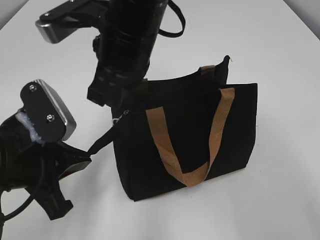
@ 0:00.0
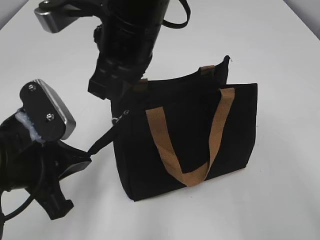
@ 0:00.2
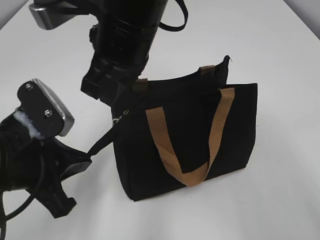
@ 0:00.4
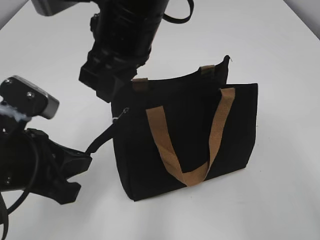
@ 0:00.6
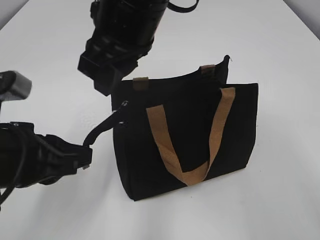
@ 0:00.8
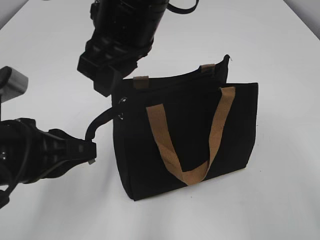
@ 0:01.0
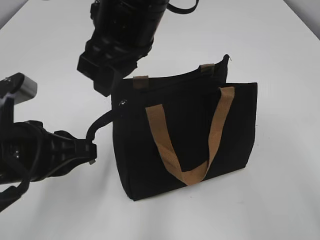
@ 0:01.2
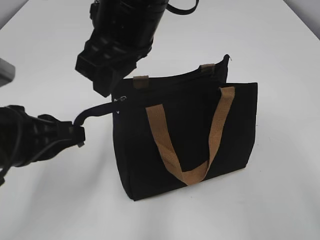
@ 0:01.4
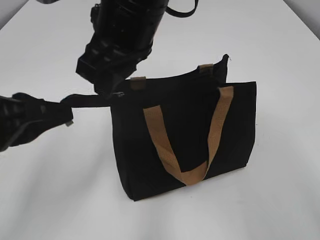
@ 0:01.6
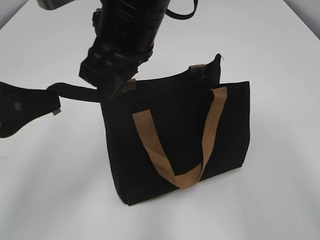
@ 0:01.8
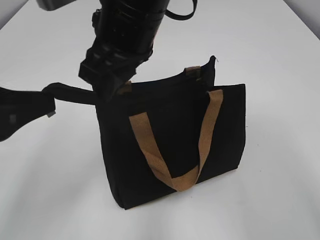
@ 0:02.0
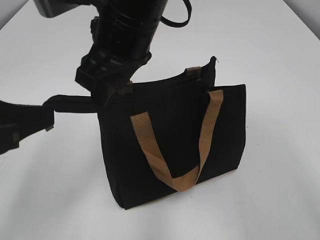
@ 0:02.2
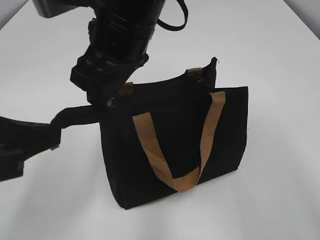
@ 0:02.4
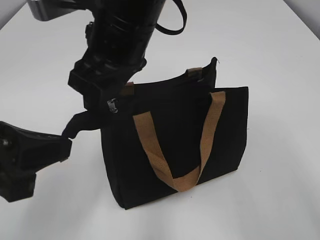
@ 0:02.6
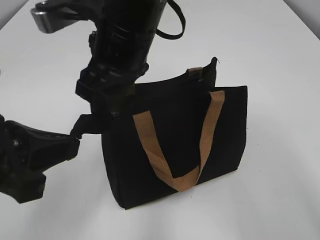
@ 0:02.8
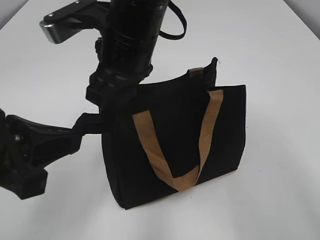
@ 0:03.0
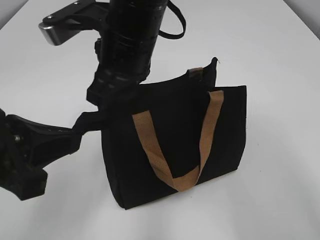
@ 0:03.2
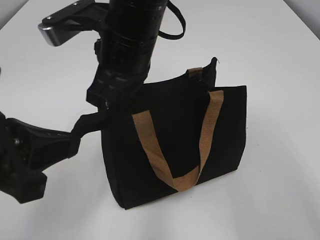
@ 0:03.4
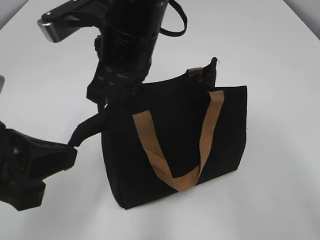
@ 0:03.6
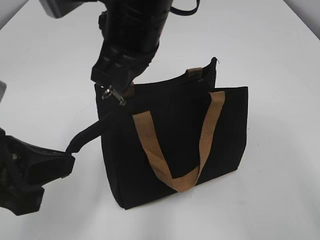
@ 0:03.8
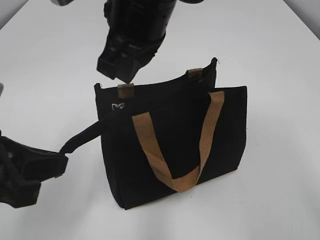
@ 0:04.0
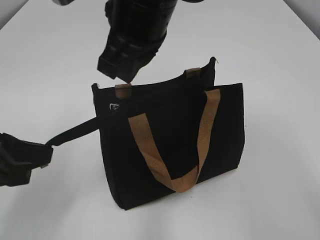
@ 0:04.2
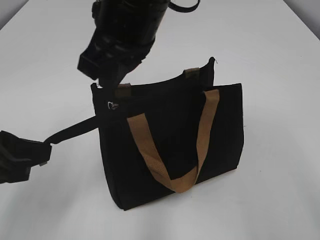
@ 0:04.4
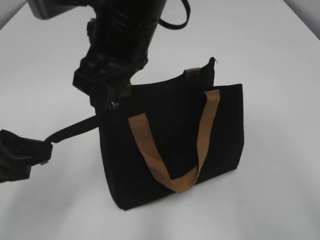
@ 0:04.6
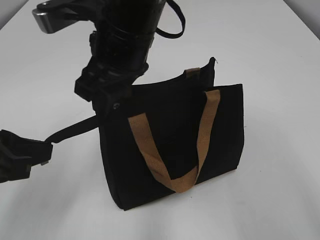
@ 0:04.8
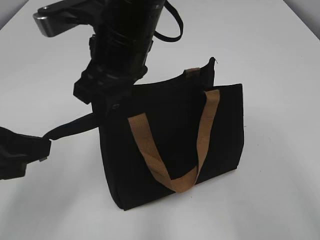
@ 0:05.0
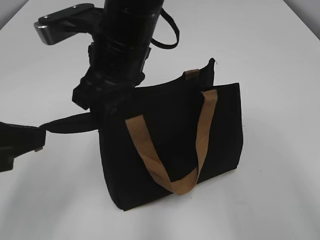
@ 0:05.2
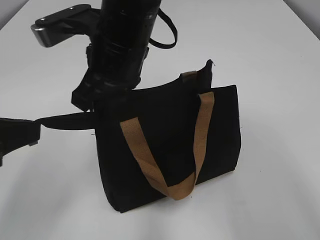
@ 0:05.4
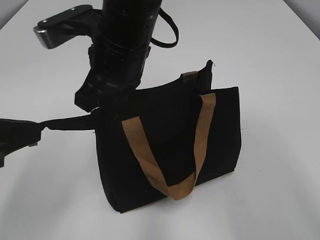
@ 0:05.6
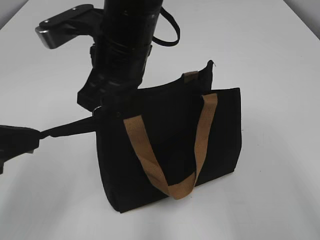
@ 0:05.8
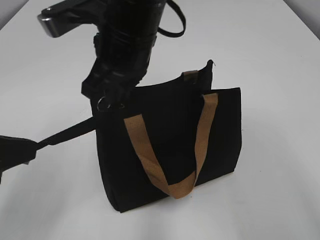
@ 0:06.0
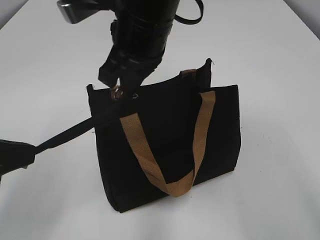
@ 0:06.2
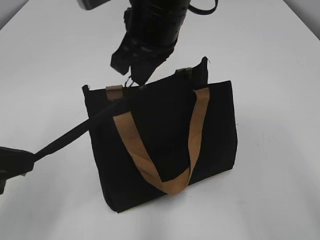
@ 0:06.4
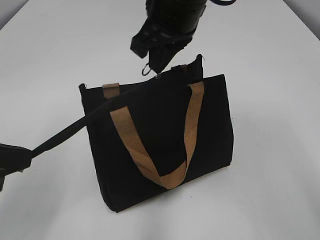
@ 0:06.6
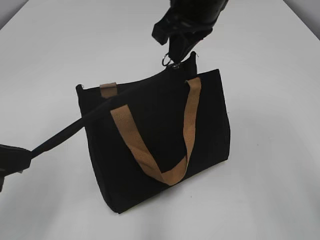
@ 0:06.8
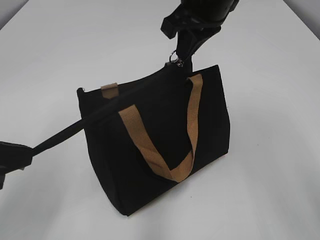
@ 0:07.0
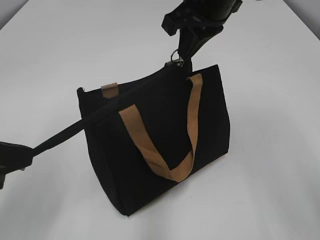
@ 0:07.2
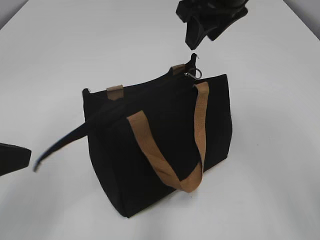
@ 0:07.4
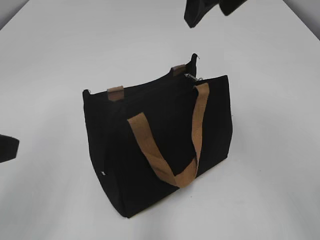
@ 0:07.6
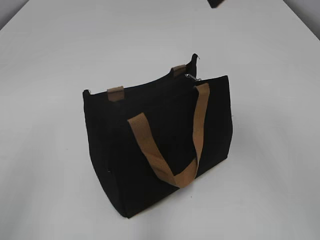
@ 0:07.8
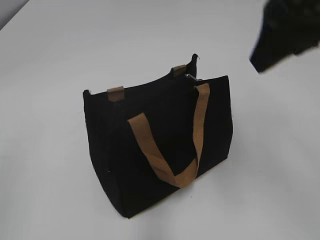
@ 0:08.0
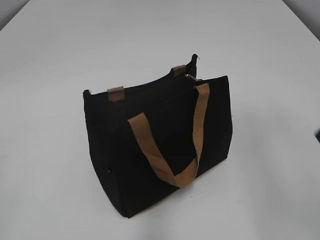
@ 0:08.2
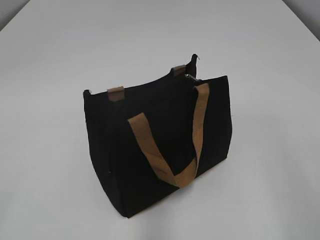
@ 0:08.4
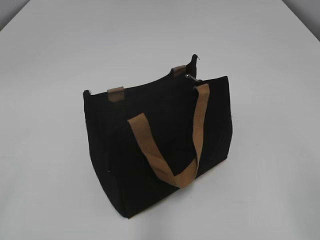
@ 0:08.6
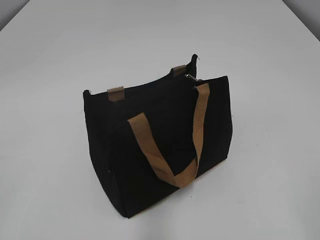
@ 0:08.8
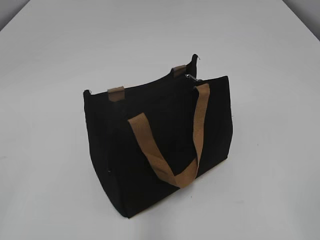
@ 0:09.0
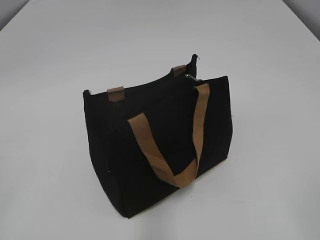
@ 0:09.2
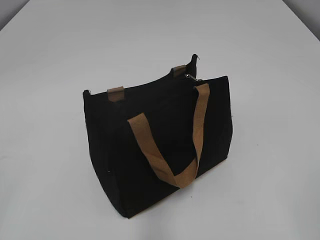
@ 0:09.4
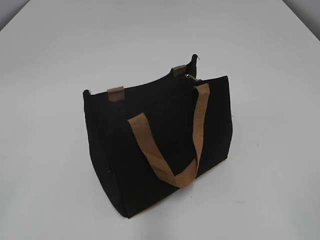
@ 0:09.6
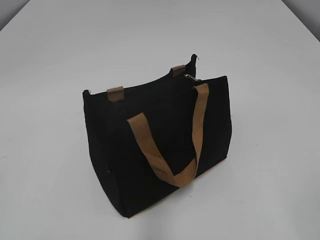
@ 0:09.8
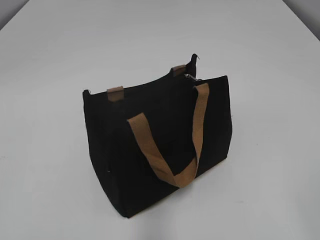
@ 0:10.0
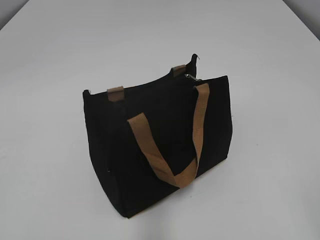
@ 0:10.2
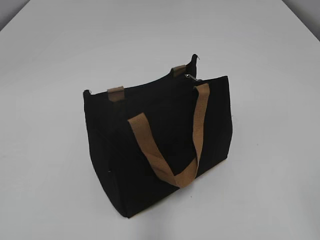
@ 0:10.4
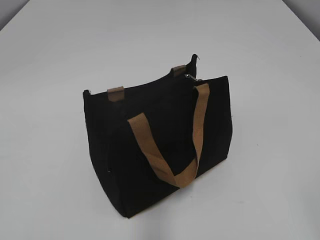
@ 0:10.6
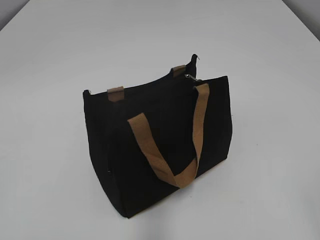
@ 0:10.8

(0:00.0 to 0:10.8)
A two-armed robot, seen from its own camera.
Step, 0:00.0 - 0:07.2: Zip up the bag with your right hand.
0:00.0 - 0:01.6: The right gripper opens its fingers. The left gripper moves upward, approximately 5 cm.
0:03.0 - 0:04.6: The right gripper closes, then reopens.
0:04.6 - 0:06.2: The right gripper closes up.
0:06.2 - 0:07.8: The left gripper ends up roughly 5 cm from where it was, and opens up. Meanwhile the right gripper is displaced to the right and upward by roughly 20 cm, and opens its fingers.
0:07.8 - 0:09.2: The right gripper is displaced backward, to the right and downward by some 35 cm; the left gripper goes some 10 cm backward and to the left.

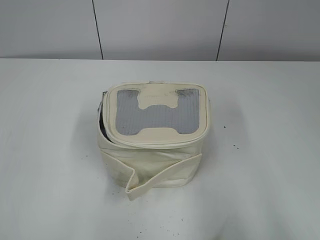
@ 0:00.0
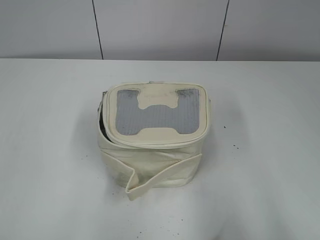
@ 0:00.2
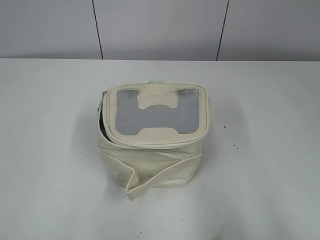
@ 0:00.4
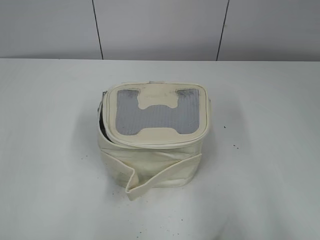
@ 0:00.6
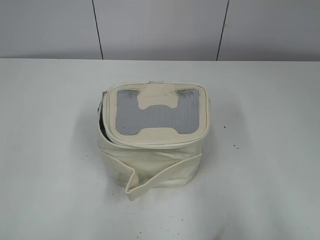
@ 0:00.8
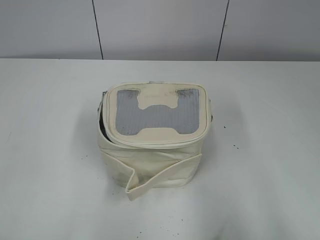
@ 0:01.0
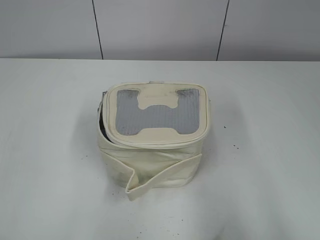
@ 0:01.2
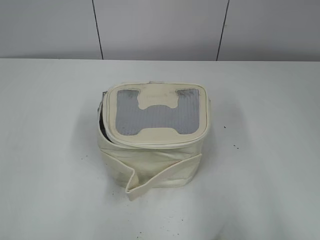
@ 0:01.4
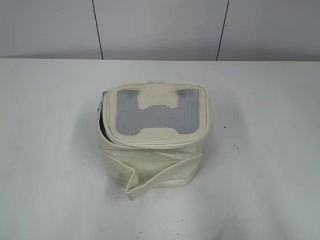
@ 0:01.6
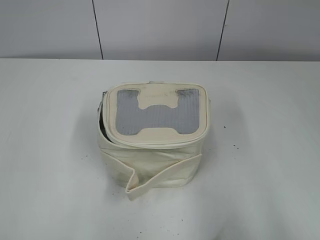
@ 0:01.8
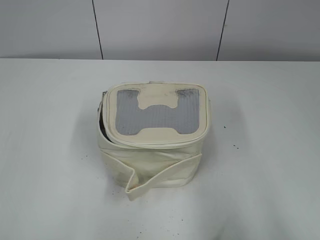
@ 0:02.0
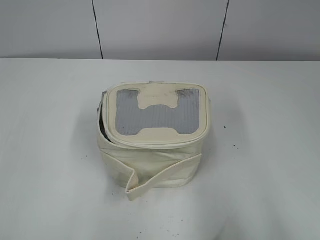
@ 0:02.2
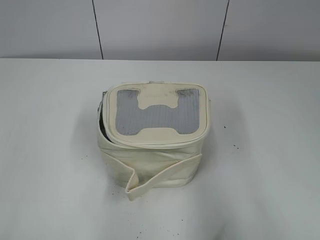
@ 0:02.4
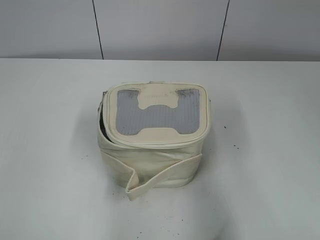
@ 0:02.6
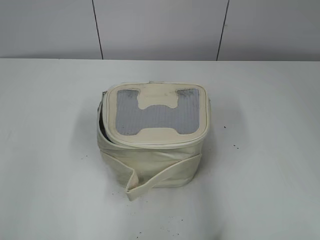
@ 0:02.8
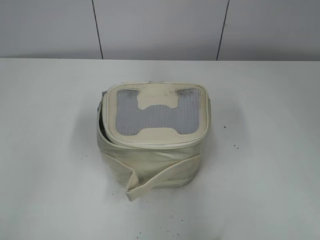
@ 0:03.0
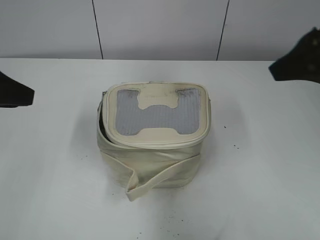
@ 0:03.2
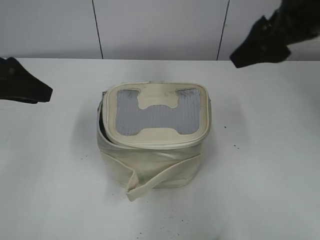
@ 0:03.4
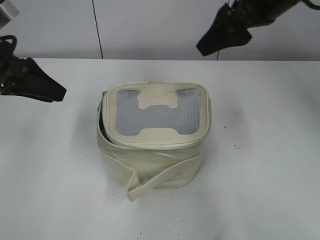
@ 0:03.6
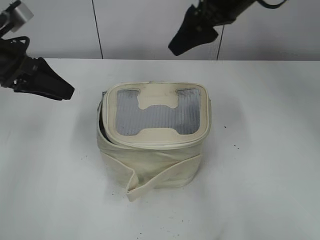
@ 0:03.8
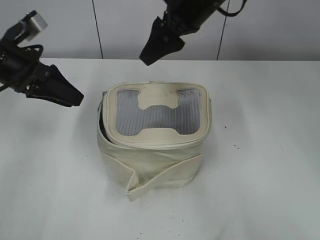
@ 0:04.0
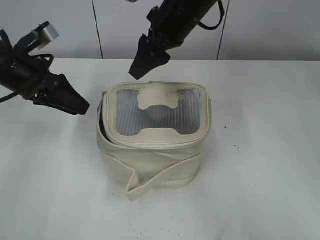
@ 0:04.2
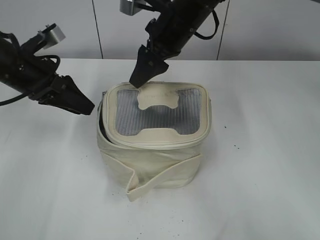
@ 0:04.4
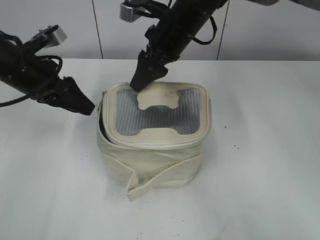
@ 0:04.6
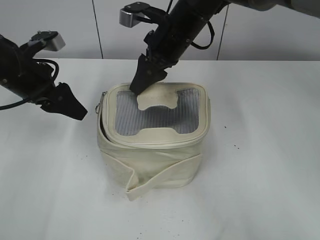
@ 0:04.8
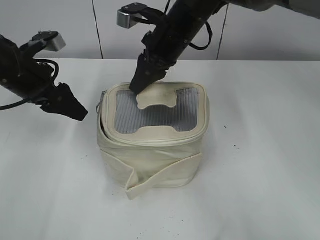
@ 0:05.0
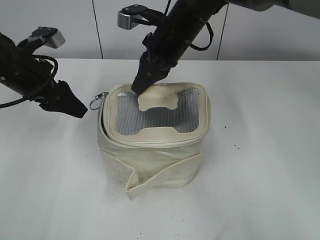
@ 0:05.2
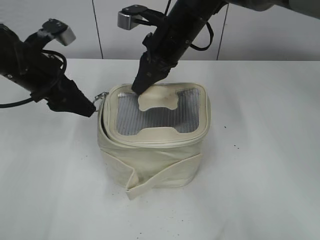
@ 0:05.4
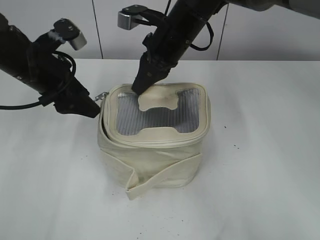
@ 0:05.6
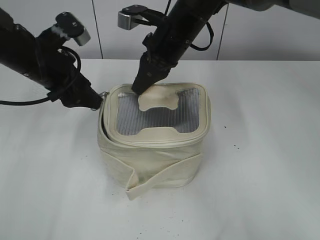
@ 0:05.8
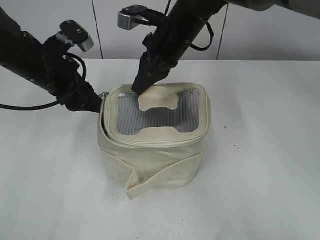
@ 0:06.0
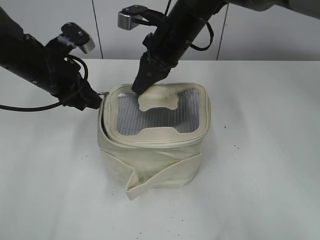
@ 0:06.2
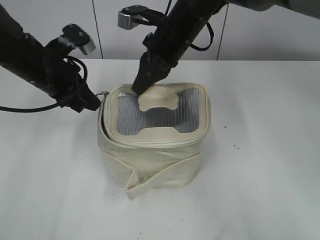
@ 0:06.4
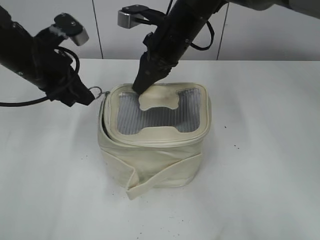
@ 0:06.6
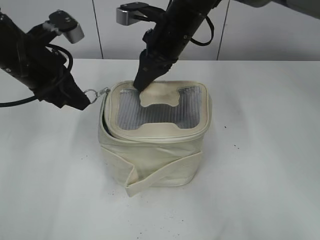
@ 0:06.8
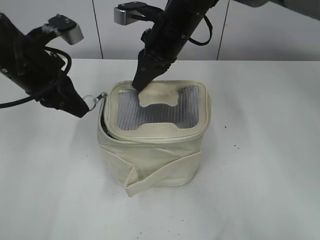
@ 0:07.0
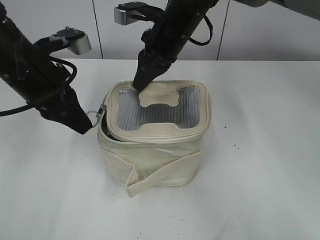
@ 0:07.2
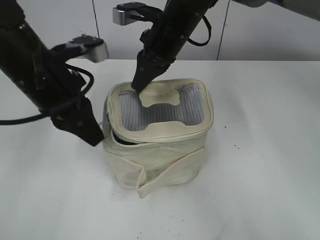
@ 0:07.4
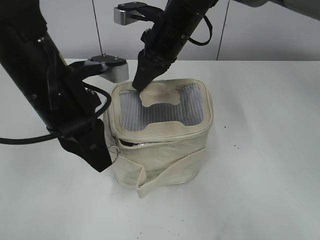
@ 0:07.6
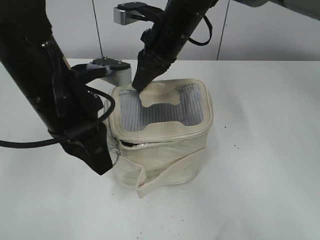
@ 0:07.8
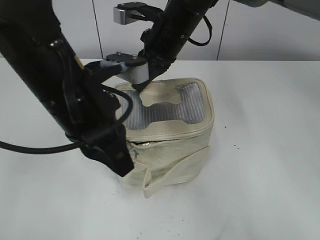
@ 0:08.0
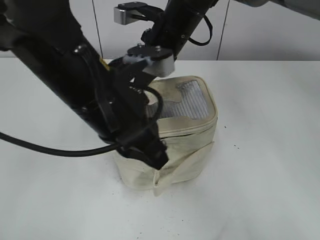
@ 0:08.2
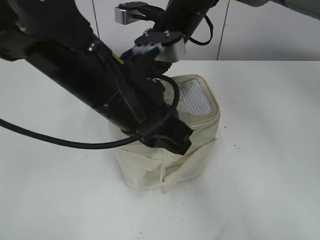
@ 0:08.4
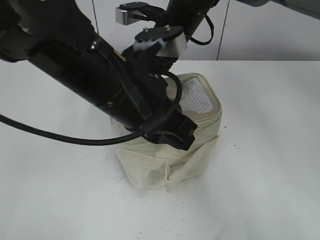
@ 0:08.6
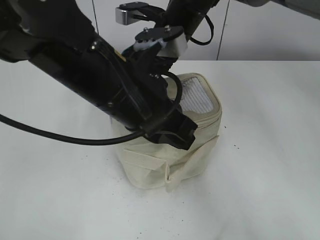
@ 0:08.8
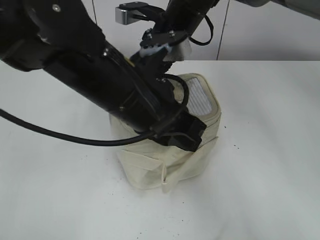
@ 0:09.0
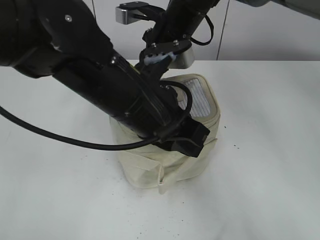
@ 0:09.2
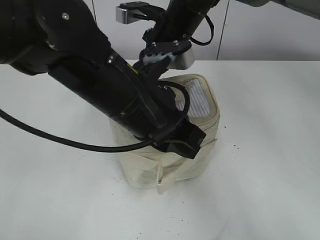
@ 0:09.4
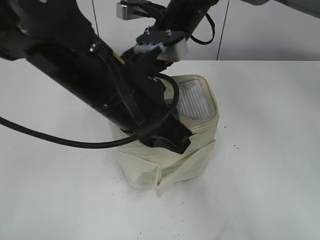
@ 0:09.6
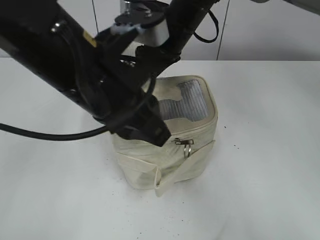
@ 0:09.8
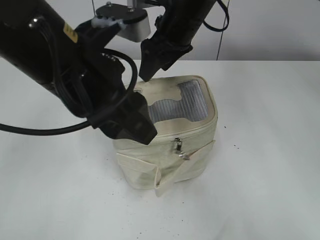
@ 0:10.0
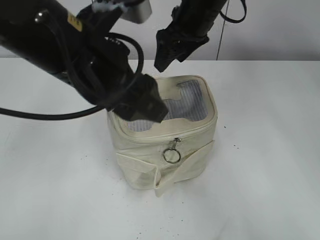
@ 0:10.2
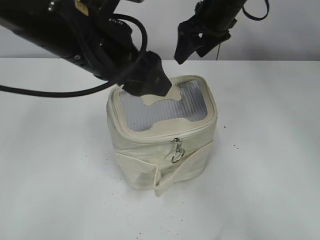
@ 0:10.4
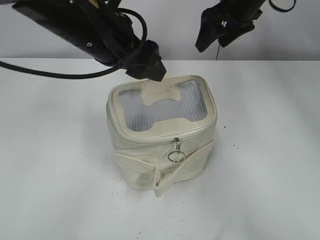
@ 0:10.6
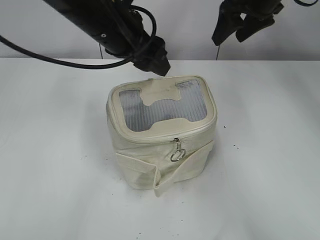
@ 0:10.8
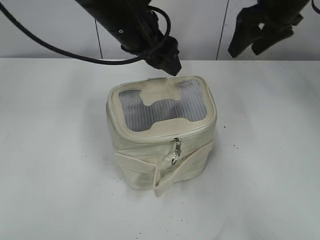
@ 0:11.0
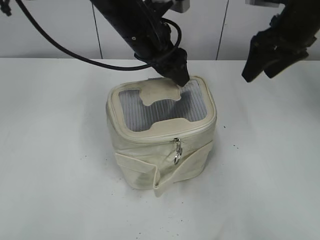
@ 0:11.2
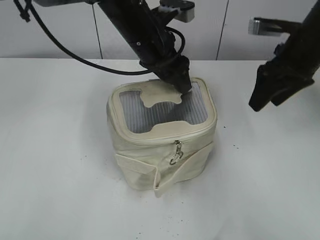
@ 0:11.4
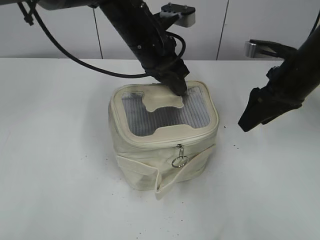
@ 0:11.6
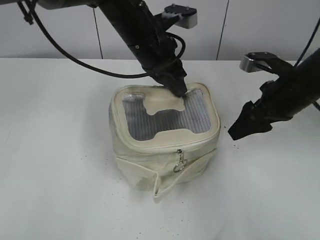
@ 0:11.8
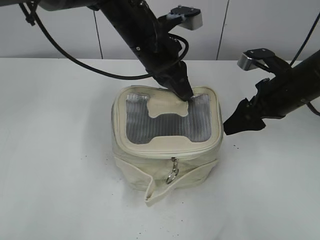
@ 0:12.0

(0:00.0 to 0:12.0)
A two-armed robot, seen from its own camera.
Step, 0:00.0 - 0:09.6: Zip up the bag with your left hand.
Step, 0:09.8 - 0:10.0: Hold the bag with your right hand.
0:01.6 - 0:03.0: The two grippers go some 15 cm forward.
0:03.0 - 0:04.4: The right gripper goes roughly 35 cm forward, to the left and downward, while the left gripper shifts about 20 cm forward and downward.
0:04.4 - 0:06.0: The right gripper closes its fingers.
0:06.0 - 0:07.6: The left gripper moves backward and to the right, approximately 10 cm, and closes.
0:07.6 - 0:09.0: The left gripper moves to the right, approximately 10 cm.
0:09.0 - 0:10.4: The left gripper ends up some 5 cm from where it was, and opens, while the right gripper travels to the right by some 10 cm, and opens its fingers.
0:10.4 - 0:12.0: The right gripper heads backward, to the right and downward, covering some 20 cm. The left gripper shifts approximately 15 cm forward, to the right and downward, and closes its fingers.
